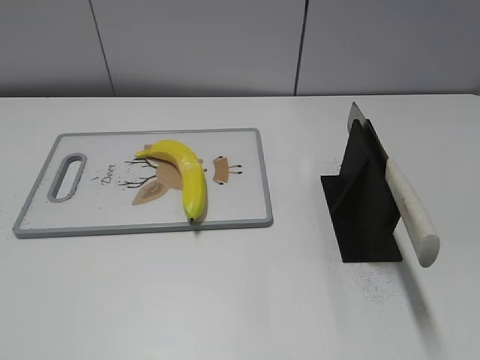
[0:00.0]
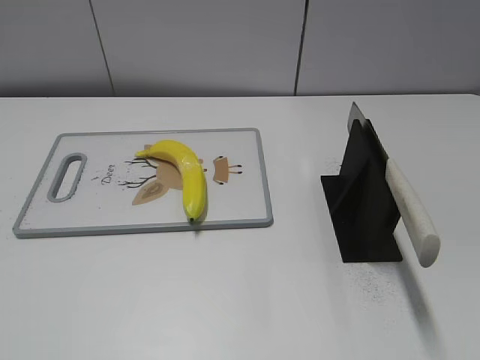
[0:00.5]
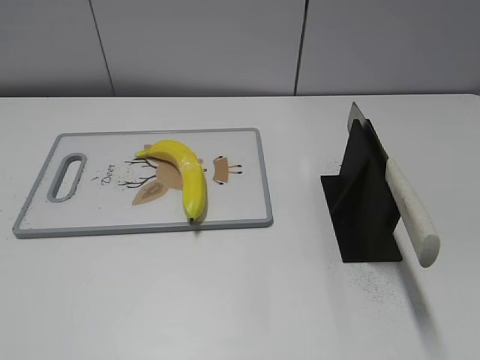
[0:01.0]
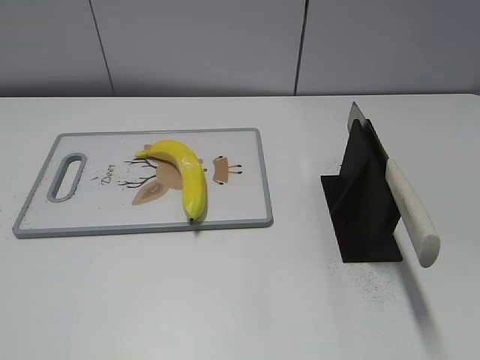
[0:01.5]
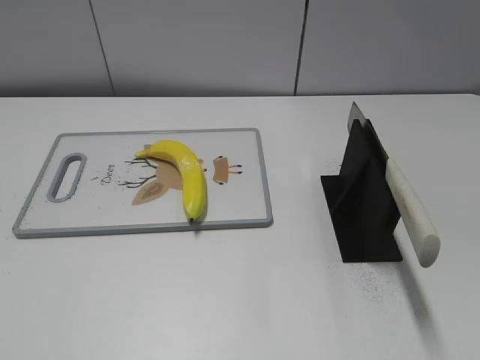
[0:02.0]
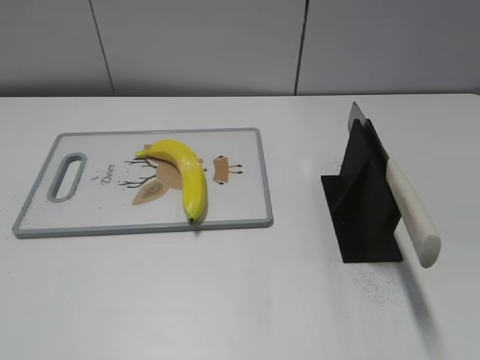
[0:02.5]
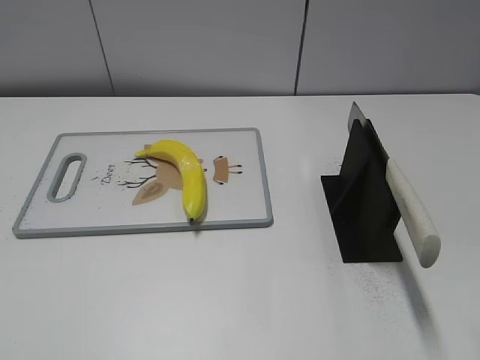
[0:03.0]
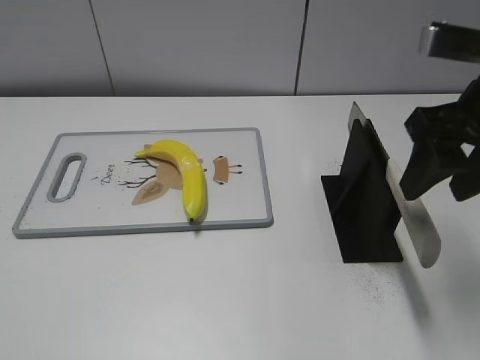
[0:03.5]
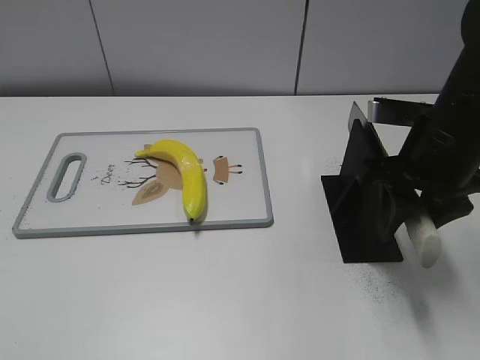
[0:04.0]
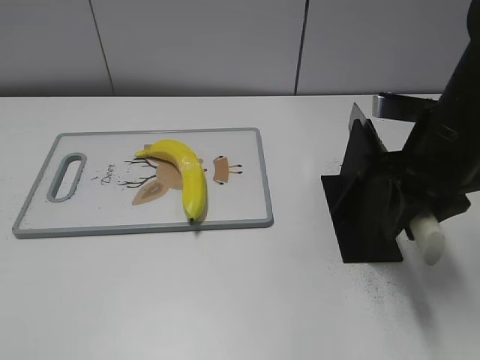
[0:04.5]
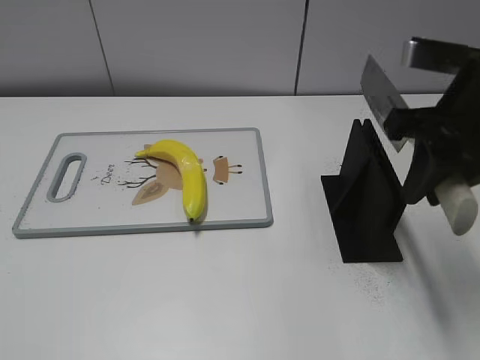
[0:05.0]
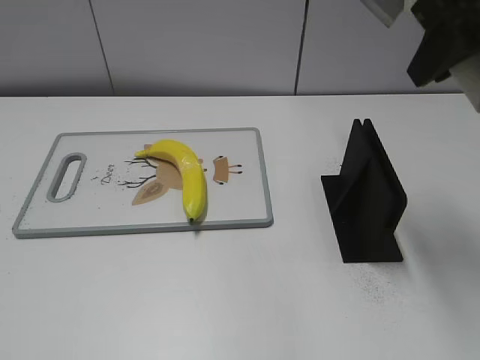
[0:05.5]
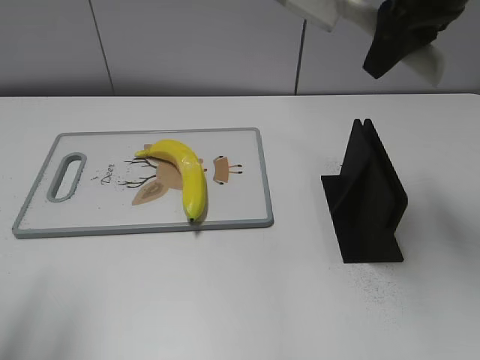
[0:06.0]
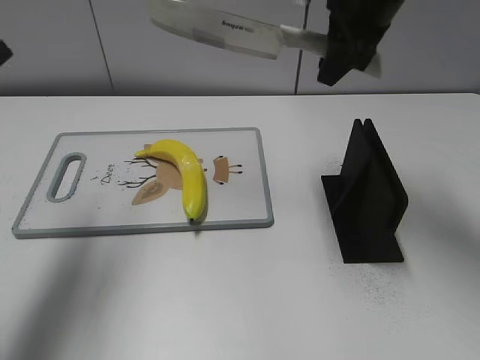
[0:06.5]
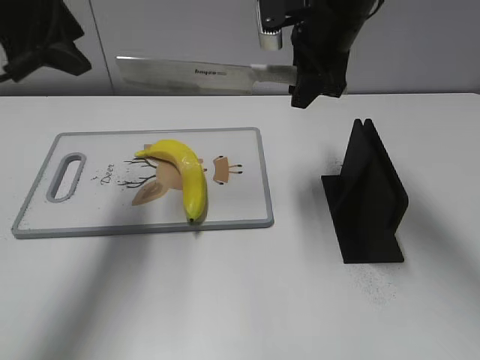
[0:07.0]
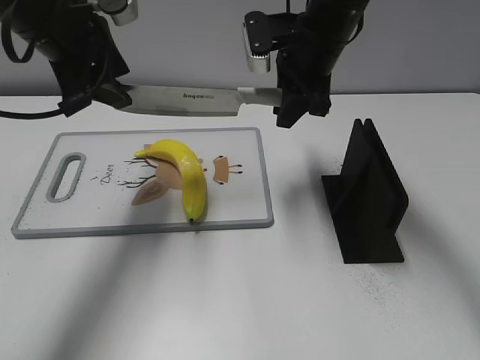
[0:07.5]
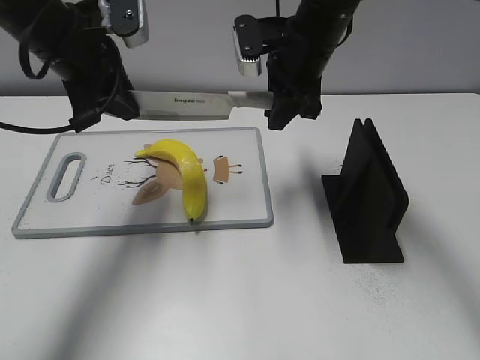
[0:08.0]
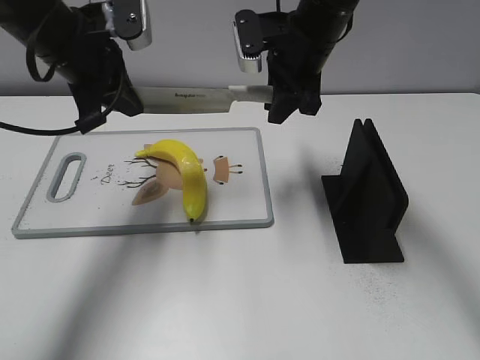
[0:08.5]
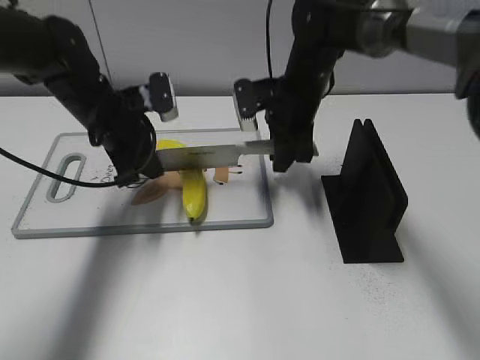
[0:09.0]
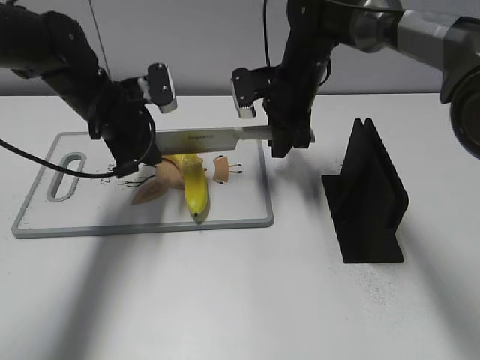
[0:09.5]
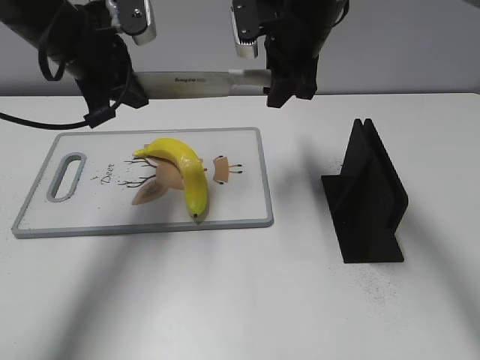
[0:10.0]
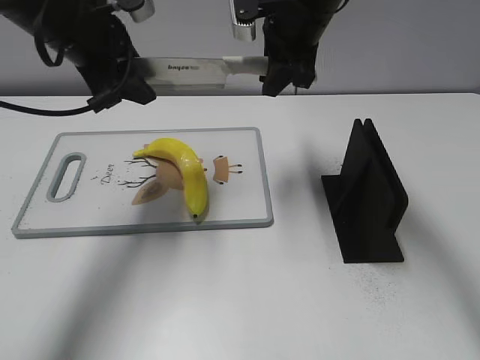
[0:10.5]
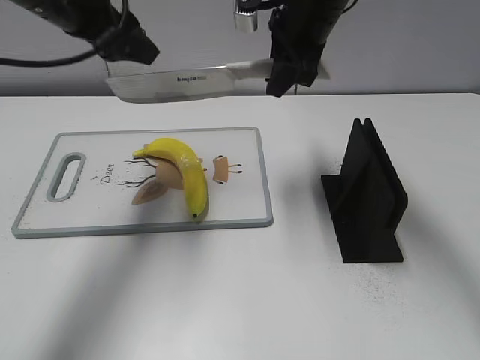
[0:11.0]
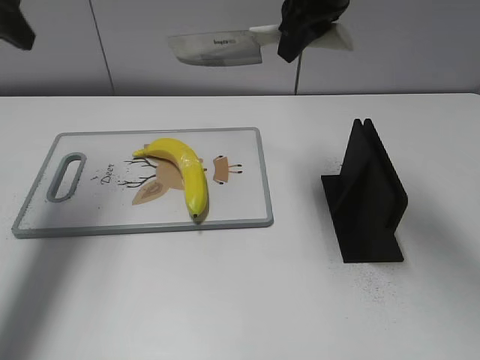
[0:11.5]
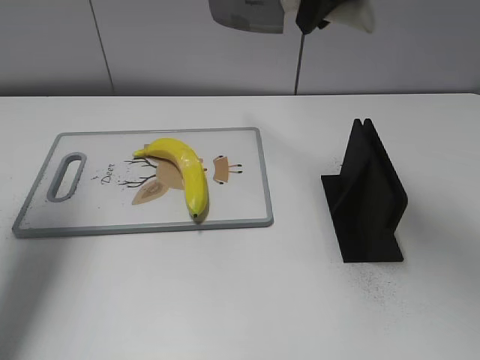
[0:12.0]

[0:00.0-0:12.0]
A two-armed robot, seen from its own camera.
Task of the whole recording: cut plastic banana.
Step, 0:00.0 to 0:05.0: Grab the knife handle with your right hand.
Step, 0:05.5 to 0:10.0: Lift the knife with your right hand.
Step, 0:10.5 to 0:11.0: Cut the banana with your right hand.
0:02.0 to 0:04.0: The right gripper heads forward, covering approximately 30 cm.
0:04.0 to 0:06.0: The left gripper travels forward and upward by approximately 15 cm, while the right gripper travels upward and forward by roughly 15 cm, and closes its fingers.
0:06.0 to 0:08.0: The right gripper goes some 15 cm downward, to the left and forward. Meanwhile the left gripper goes roughly 25 cm forward and to the right, and closes up.
0:08.0 to 0:10.0: The right gripper travels downward and back again, approximately 10 cm each way. Meanwhile the left gripper goes downward and returns, approximately 10 cm each way, and closes its fingers.
0:10.0 to 0:12.0: The right gripper goes roughly 15 cm upward and backward, while the left gripper moves to the left, upward and backward, some 15 cm, and opens.

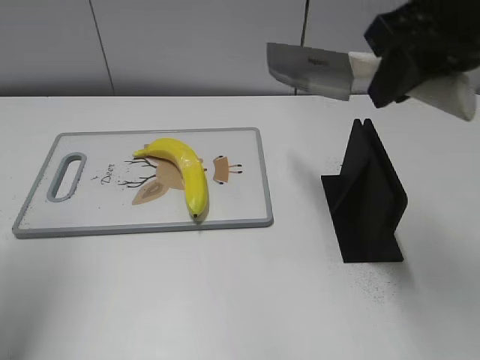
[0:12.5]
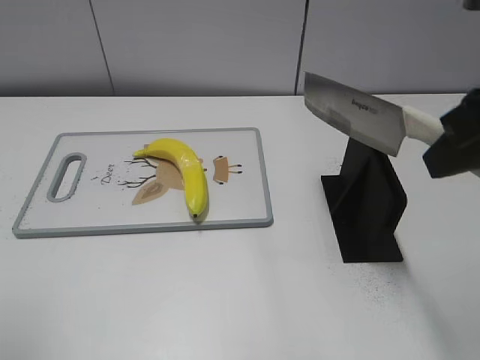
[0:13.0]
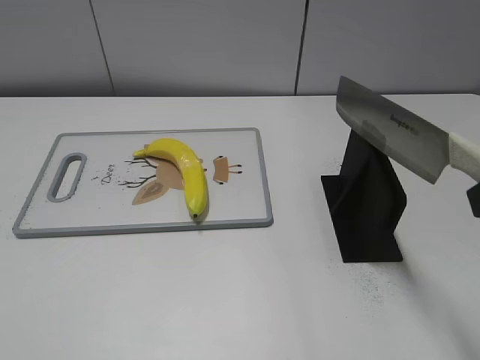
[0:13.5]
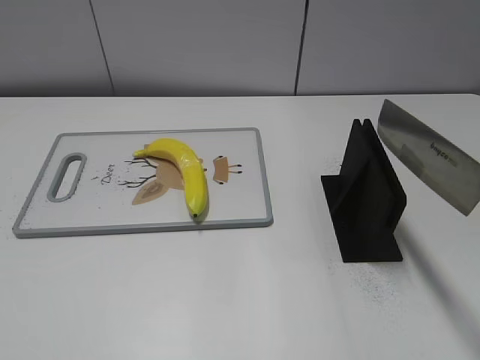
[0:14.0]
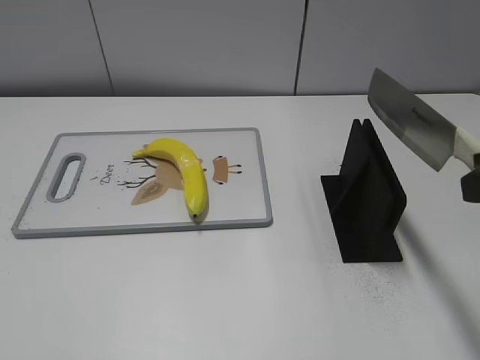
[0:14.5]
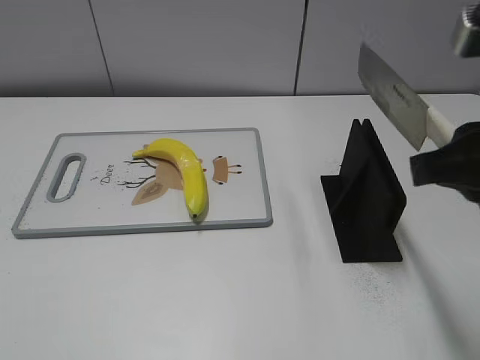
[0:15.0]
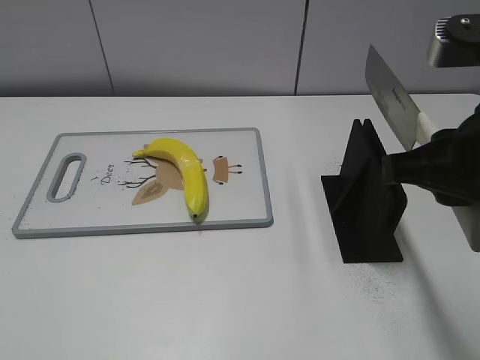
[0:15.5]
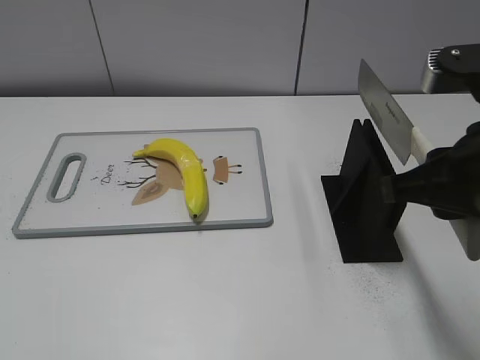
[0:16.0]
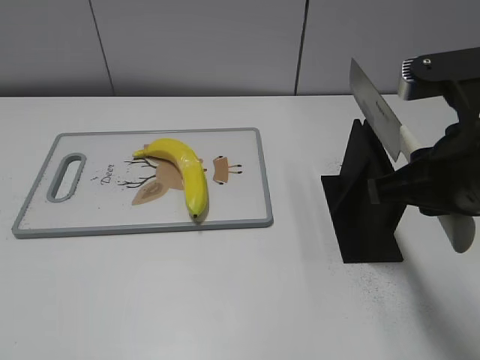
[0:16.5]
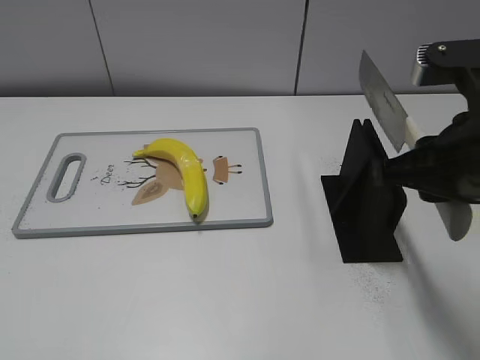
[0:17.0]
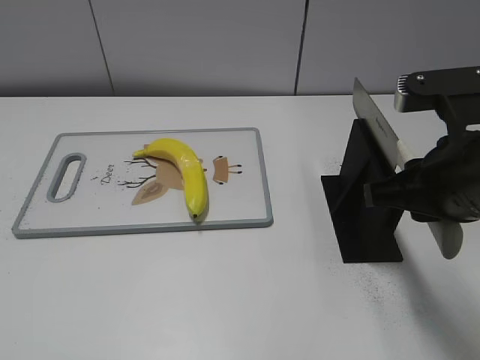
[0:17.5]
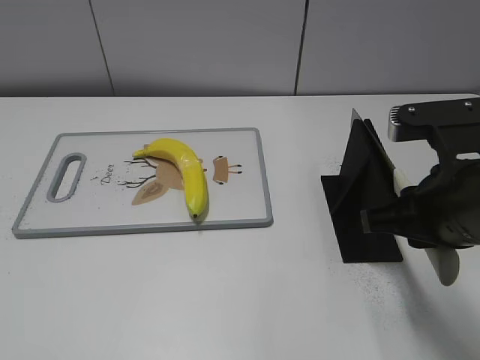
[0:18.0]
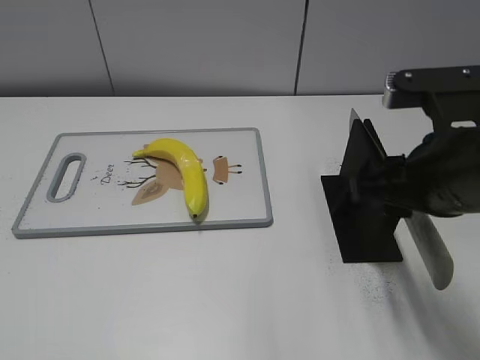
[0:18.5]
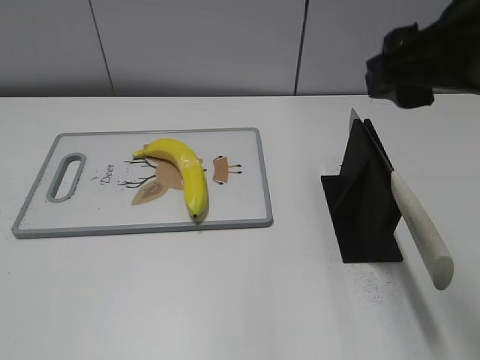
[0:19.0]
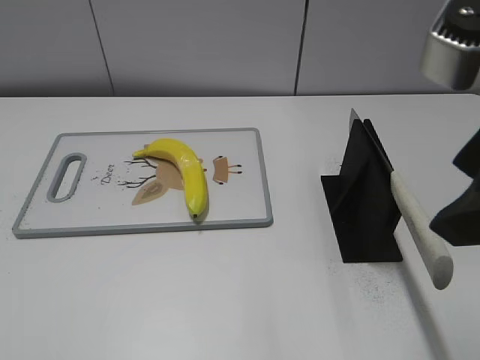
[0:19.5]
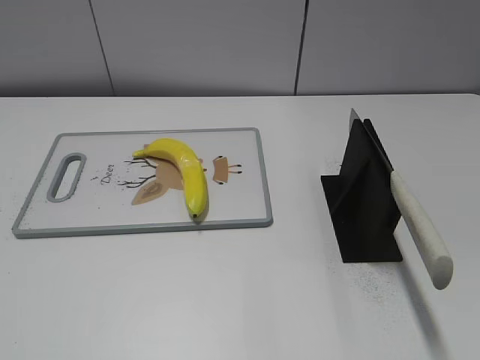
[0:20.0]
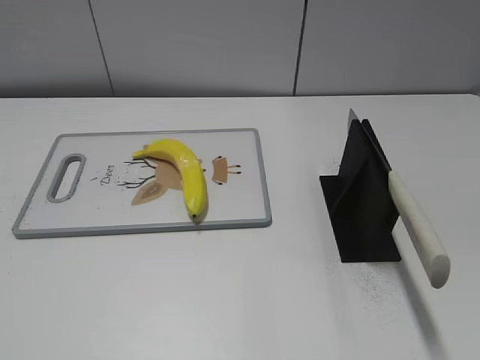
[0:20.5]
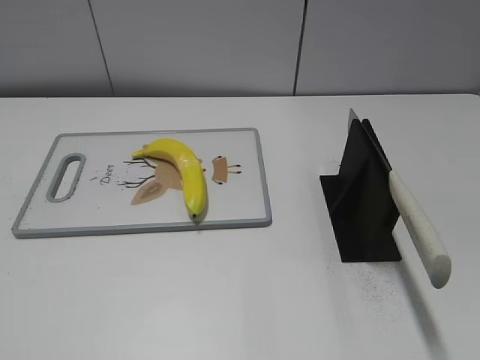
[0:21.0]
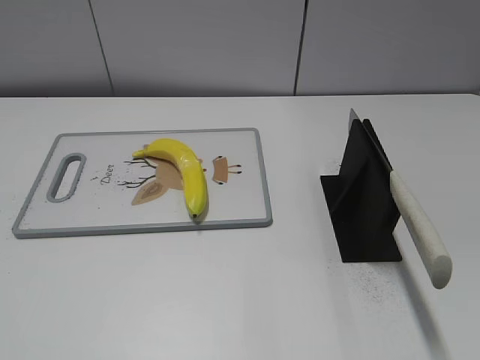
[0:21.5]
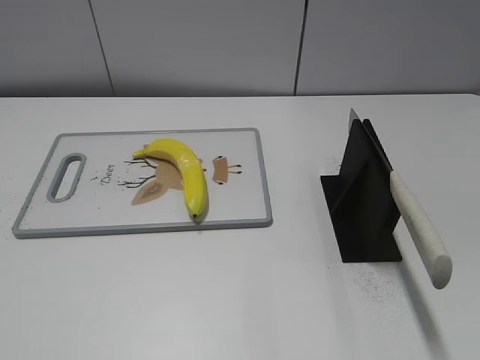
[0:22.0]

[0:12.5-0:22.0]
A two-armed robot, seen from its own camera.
Task of the whole recording: cut plastic banana.
Step, 0:13.0 to 0:22.0: Place the knife on the storage rack with your right hand.
0:12.5 to 0:14.5: The left gripper heads backward, covering approximately 25 cm. Meanwhile the right gripper goes about 15 cm backward, to the right and downward.
0:14.5 to 0:16.5: The right gripper heads to the left, covering about 5 cm.
0:16.5 to 0:18.0: The grippers make only small movements.
0:18.0 to 0:20.0: The right gripper is displaced backward, upward and to the right by some 15 cm, and opens its fingers.

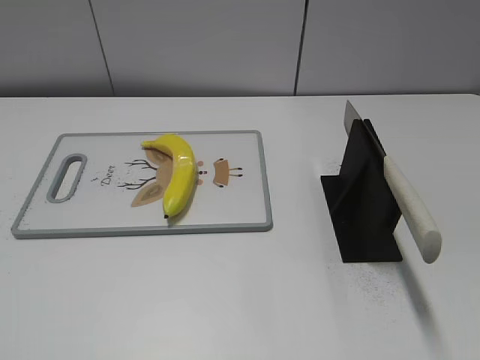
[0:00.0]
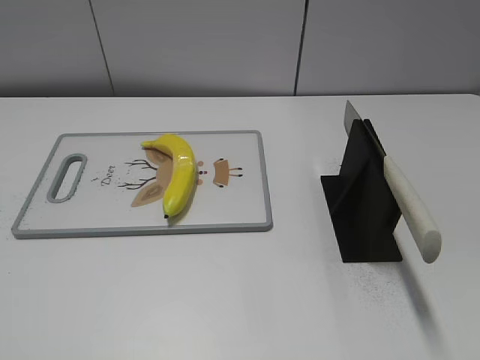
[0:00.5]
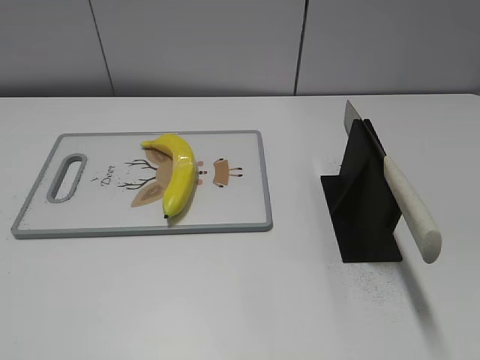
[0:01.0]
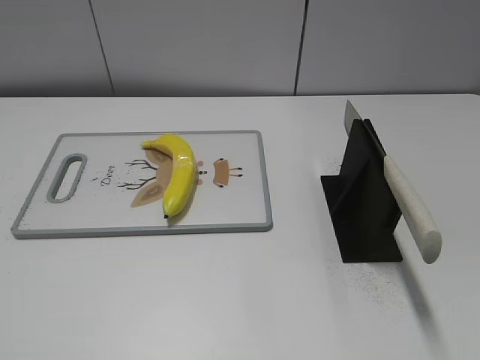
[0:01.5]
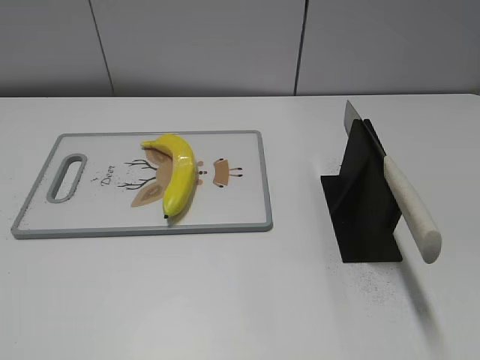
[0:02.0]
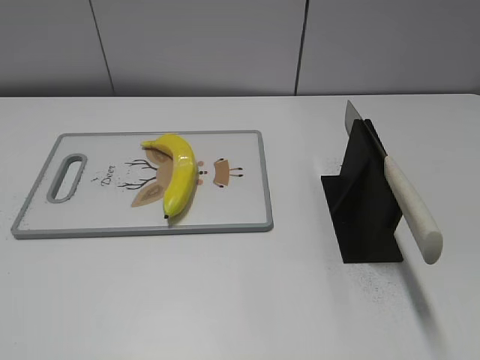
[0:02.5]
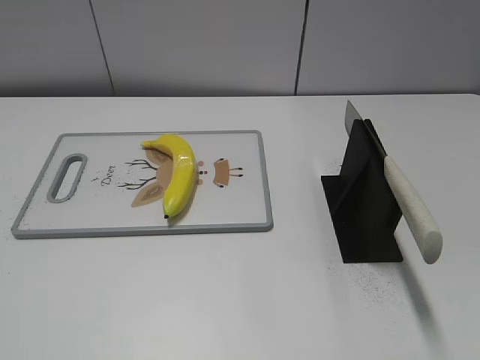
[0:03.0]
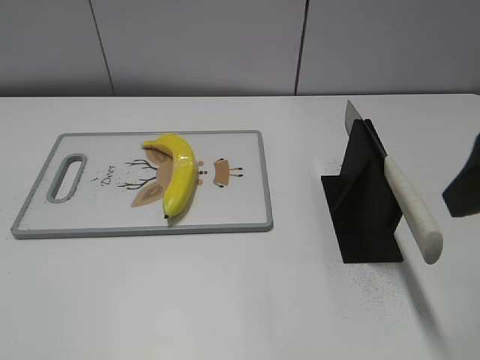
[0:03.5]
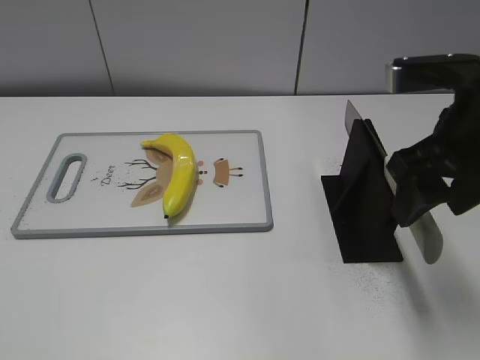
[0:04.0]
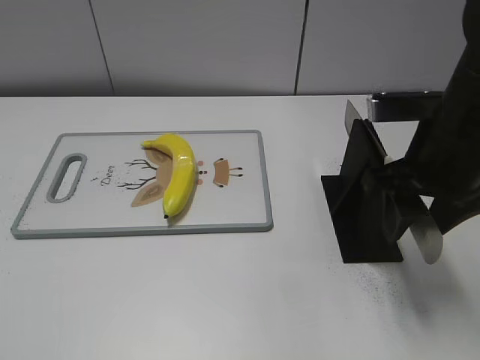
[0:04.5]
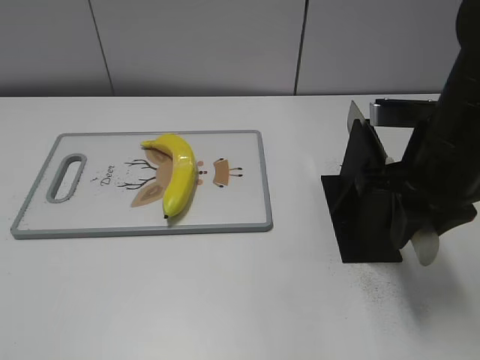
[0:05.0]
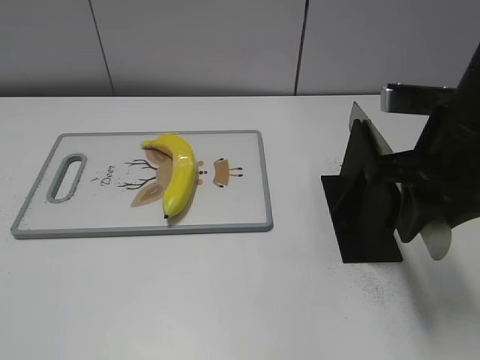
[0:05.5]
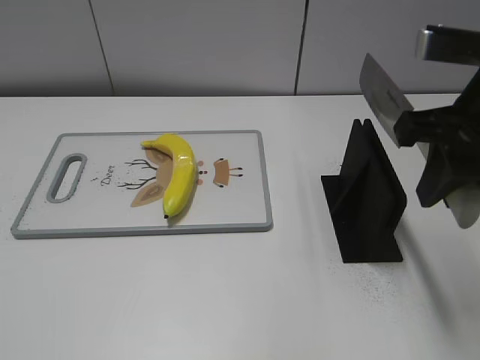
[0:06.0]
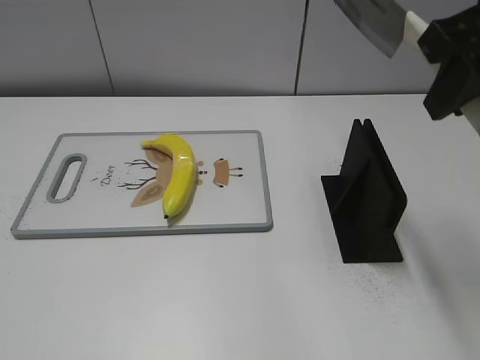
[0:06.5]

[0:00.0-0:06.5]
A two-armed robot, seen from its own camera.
Task of the whole recording: cut plastic banana.
Step, 0:00.0 to 0:06.0: Grab the knife handle with your right hand.
0:02.0 to 0:04.5: The right gripper is displaced forward by approximately 25 cm.
0:04.5 to 0:06.5: The right gripper moves upward, roughly 15 cm, and closes up.
